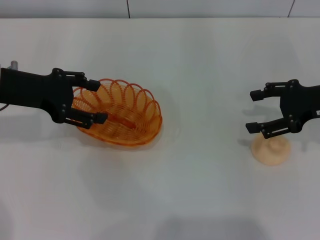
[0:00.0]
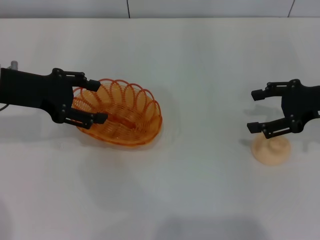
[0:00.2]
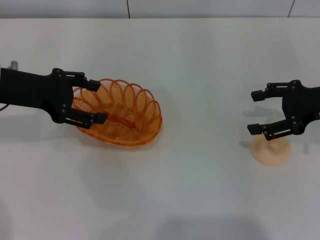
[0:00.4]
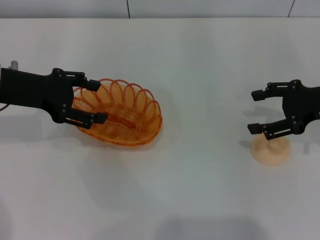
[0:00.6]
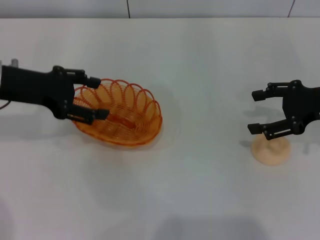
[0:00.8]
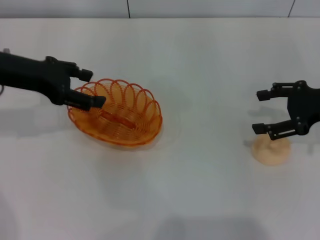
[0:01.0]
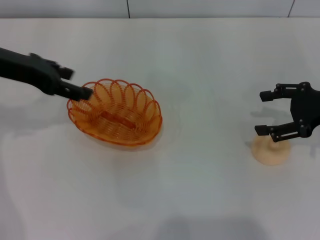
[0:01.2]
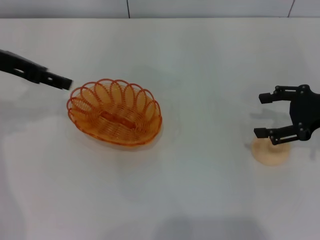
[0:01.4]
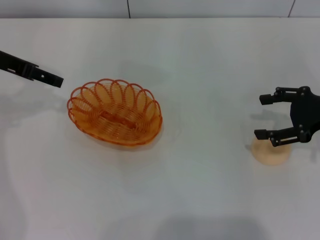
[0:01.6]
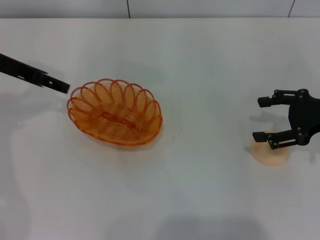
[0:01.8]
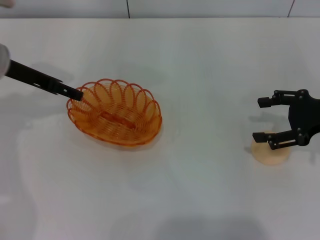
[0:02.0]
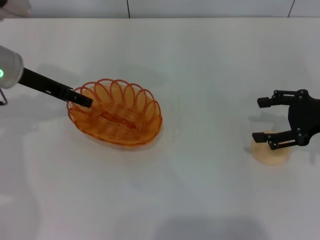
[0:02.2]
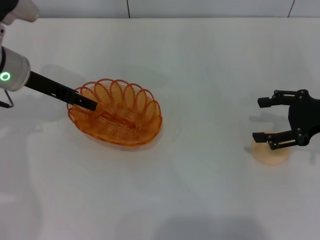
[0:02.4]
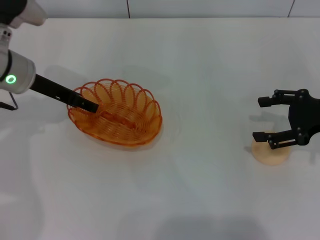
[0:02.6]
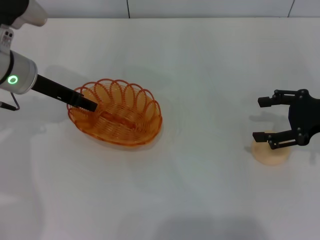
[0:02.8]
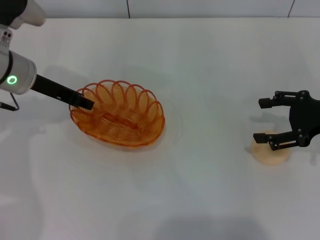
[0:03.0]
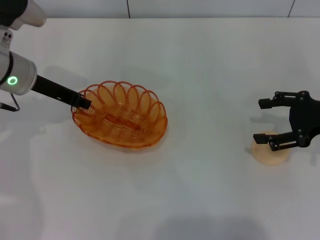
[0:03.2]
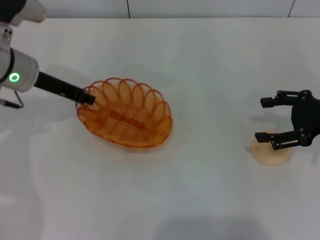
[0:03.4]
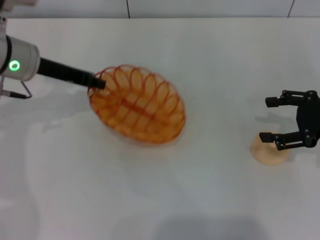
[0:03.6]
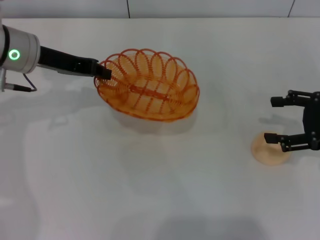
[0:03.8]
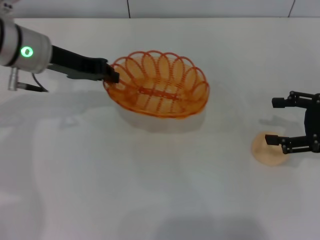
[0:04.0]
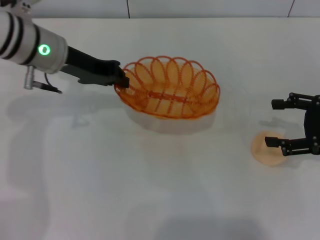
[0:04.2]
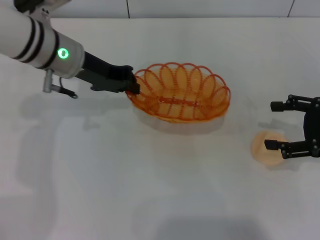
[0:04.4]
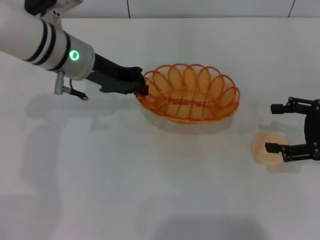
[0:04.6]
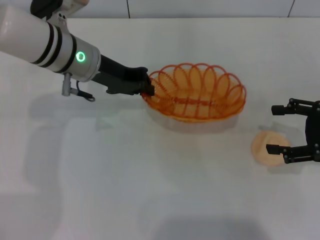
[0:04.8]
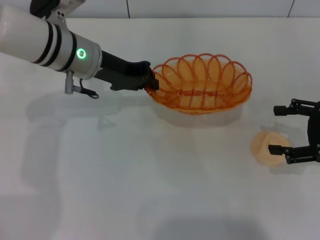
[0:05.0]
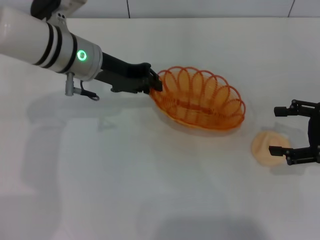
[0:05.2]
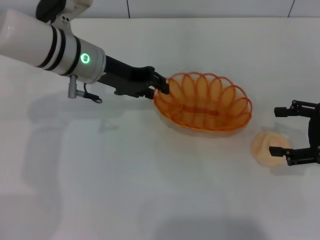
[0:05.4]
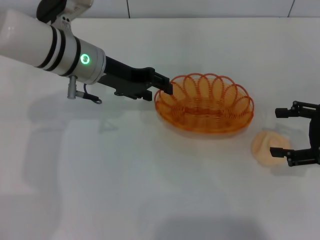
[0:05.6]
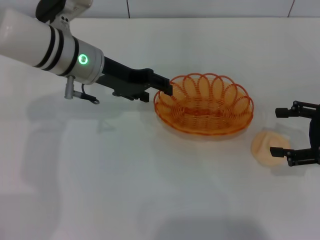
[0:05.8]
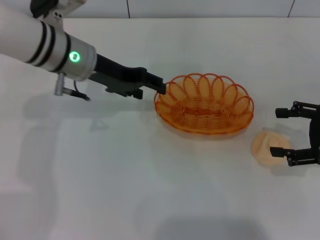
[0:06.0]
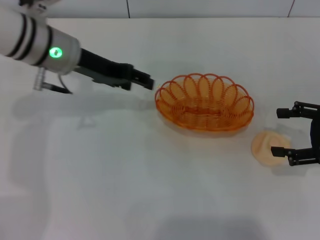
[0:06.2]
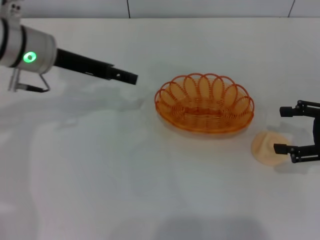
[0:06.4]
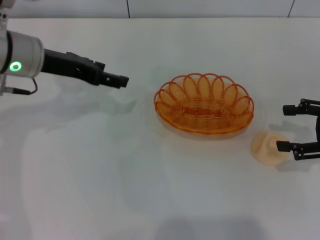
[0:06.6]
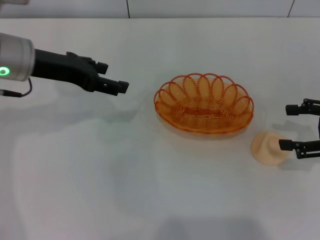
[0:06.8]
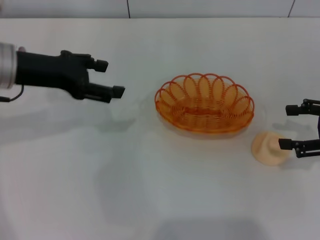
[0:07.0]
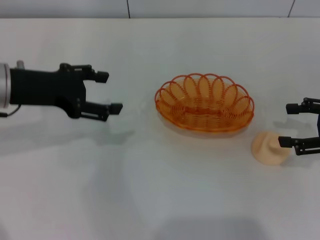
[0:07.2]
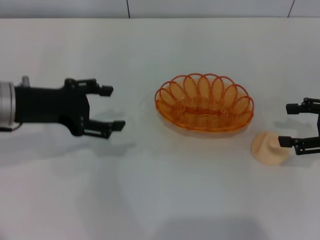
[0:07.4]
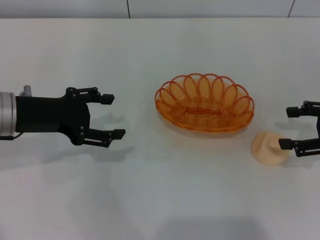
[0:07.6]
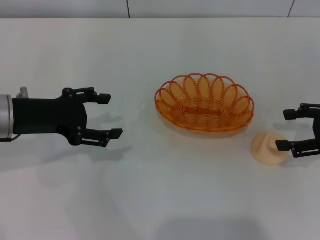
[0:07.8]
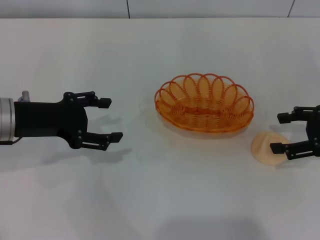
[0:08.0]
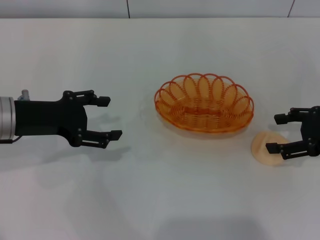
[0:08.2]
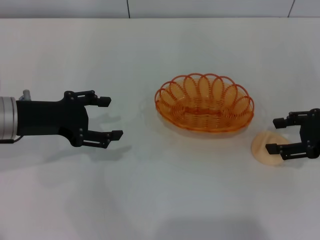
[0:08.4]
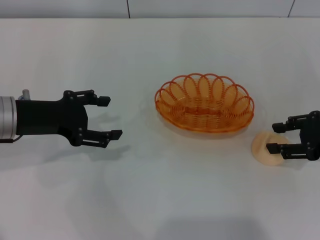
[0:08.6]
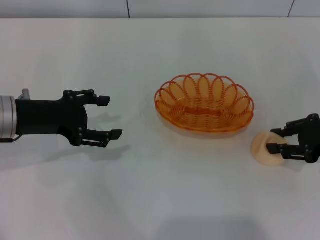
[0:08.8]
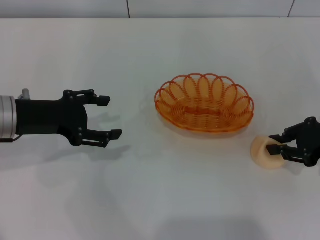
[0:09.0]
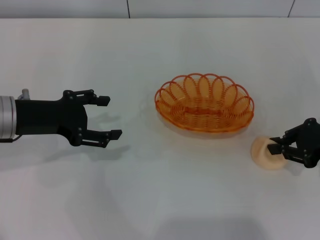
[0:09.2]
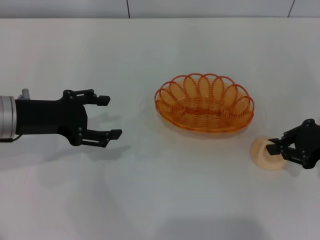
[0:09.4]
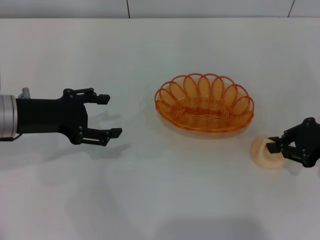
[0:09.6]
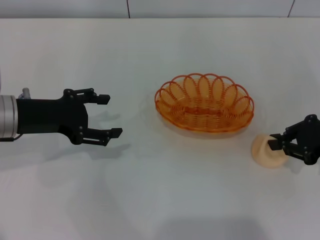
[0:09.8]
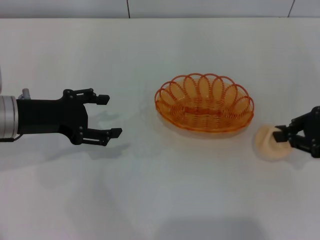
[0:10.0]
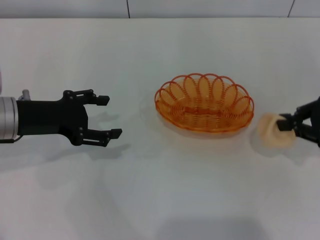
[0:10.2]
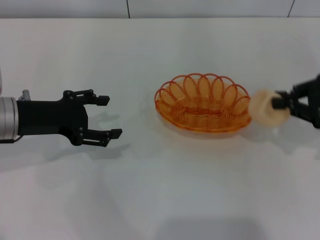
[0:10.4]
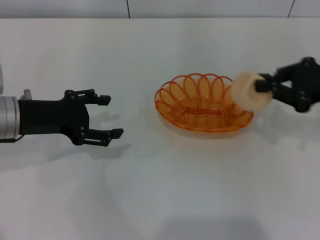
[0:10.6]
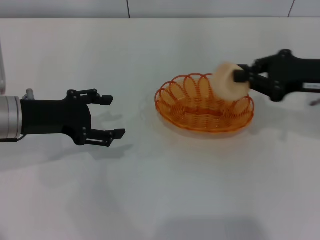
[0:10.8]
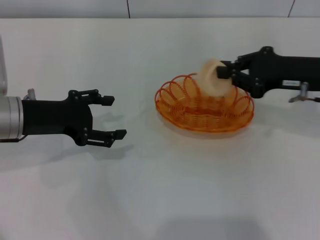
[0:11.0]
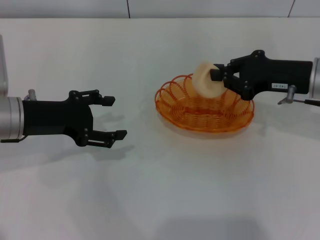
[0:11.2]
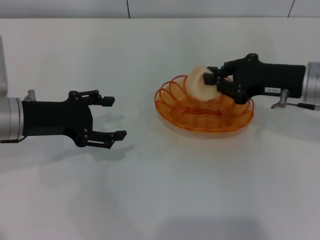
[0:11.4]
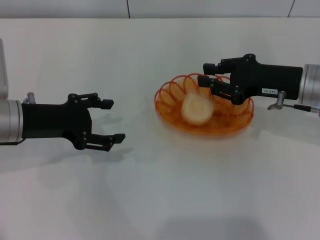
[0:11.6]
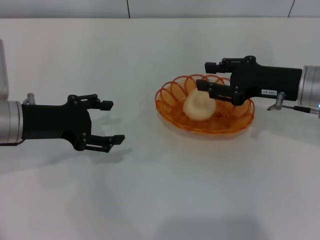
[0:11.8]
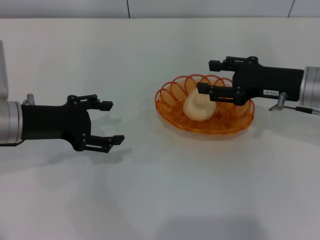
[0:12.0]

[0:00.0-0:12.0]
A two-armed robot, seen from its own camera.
Step, 0:00.0 to 0:04.0: Pick up the basket with the left gripper.
Step, 0:04.2 to 0:06.4: Place the basket in the center of view with the left gripper.
Step, 0:06.6 to 0:10.2: Pick up the egg yolk pastry with the right gripper.
0:00.0 to 0:01.6: The left gripper shifts by some 5 cm.
0:01.6 to 0:03.0: The left gripper travels downward and to the right by roughly 10 cm, and closes up.
0:03.0 to 0:04.4: The left gripper shifts about 5 cm to the right, and closes its fingers.
0:04.4 to 0:06.0: The left gripper opens up.
0:06.0 to 0:07.6: The left gripper heads to the left and backward, covering some 15 cm.
0:07.6 to 0:09.0: The right gripper closes up.
0:09.0 to 0:10.4: The right gripper travels upward by roughly 5 cm, and closes.
0:10.4 to 0:12.0: The right gripper is displaced to the left by roughly 10 cm, and opens.

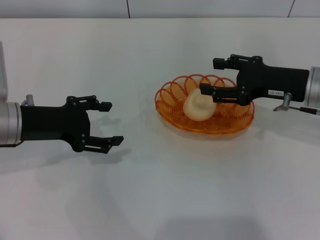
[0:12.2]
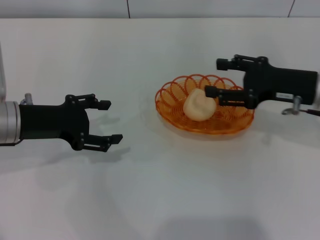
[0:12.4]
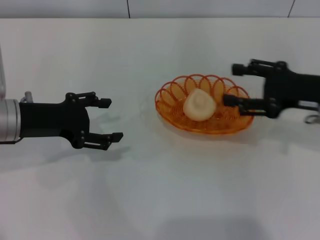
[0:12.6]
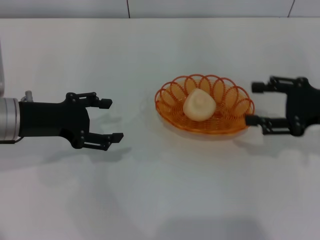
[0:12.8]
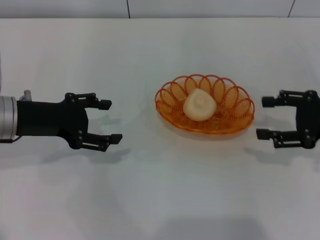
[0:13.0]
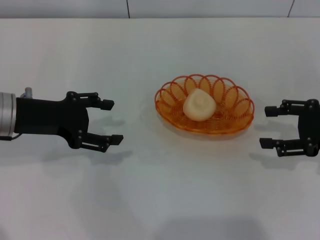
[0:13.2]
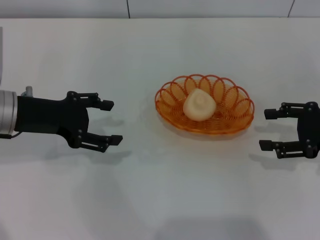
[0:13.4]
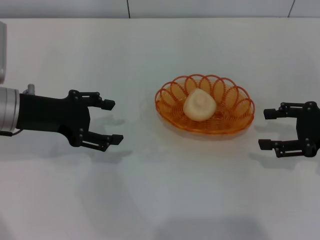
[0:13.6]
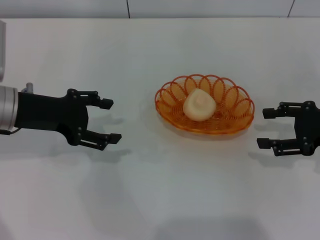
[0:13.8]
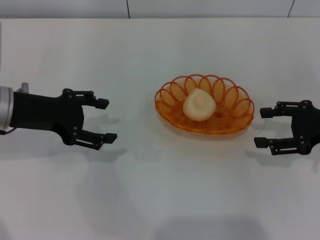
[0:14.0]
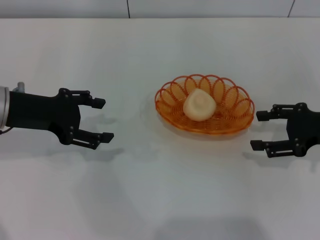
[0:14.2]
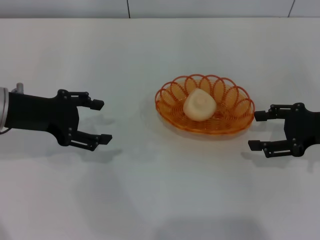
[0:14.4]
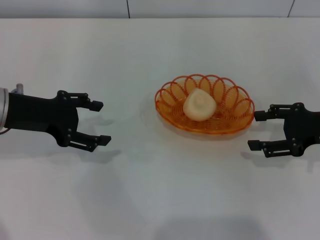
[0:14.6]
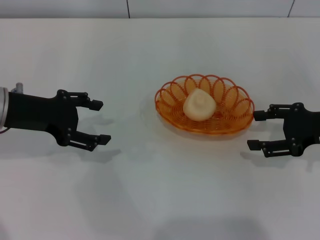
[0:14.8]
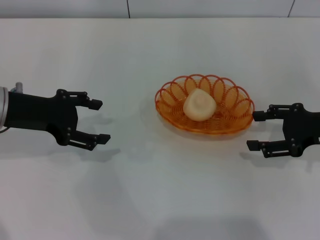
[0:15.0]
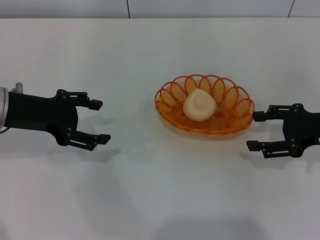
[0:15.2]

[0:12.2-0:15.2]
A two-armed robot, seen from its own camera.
0:12.2 to 0:13.8: The right gripper goes some 10 cm to the right.
0:13.8 to 0:15.2: There are only small adjustments of the grippers.
